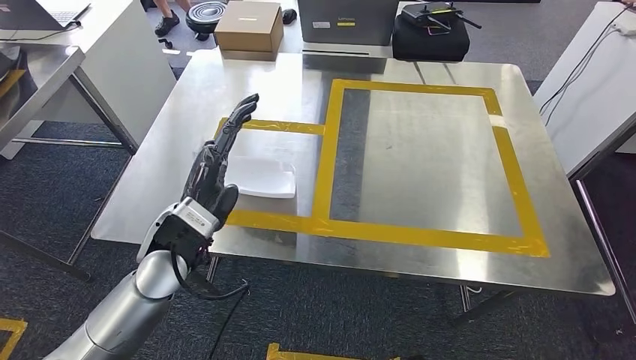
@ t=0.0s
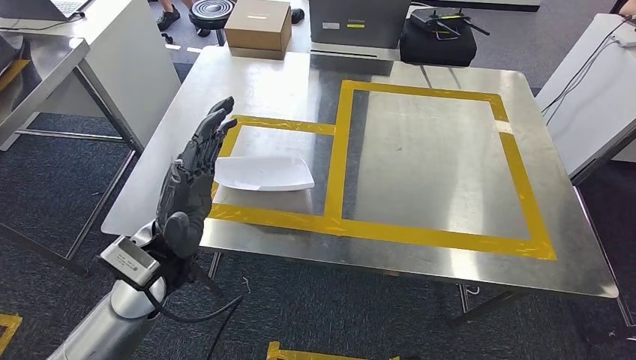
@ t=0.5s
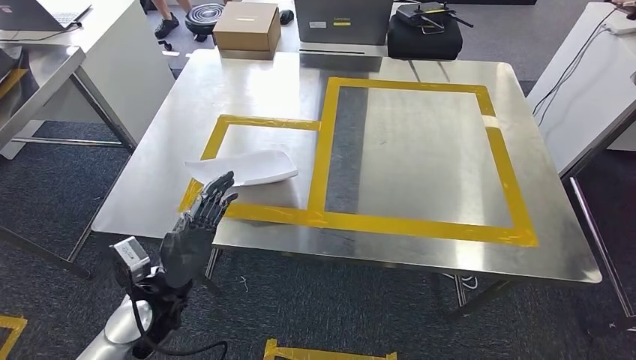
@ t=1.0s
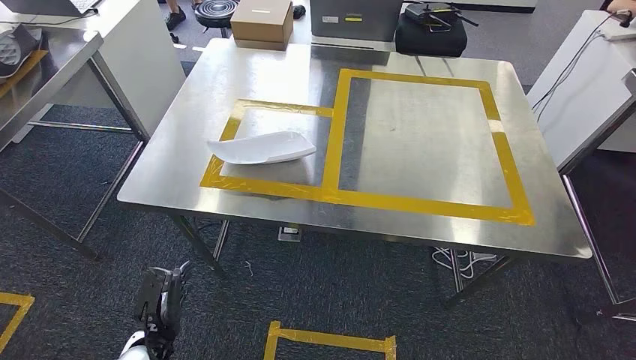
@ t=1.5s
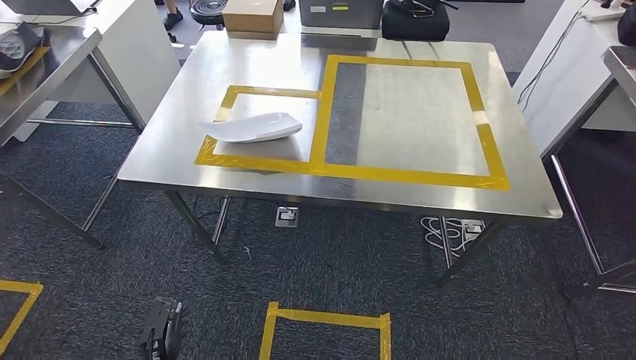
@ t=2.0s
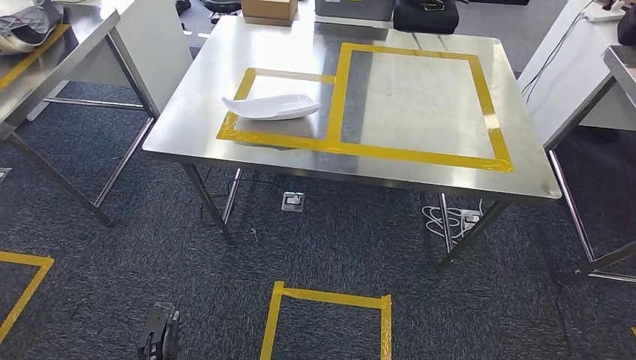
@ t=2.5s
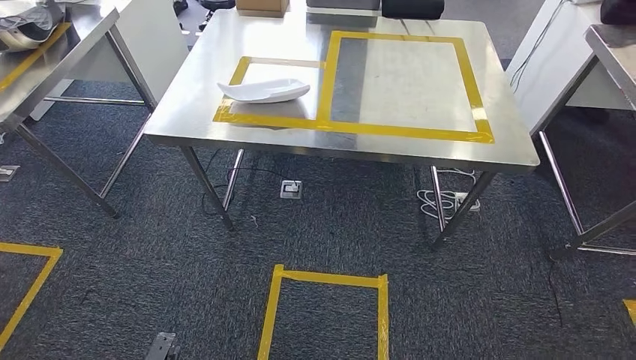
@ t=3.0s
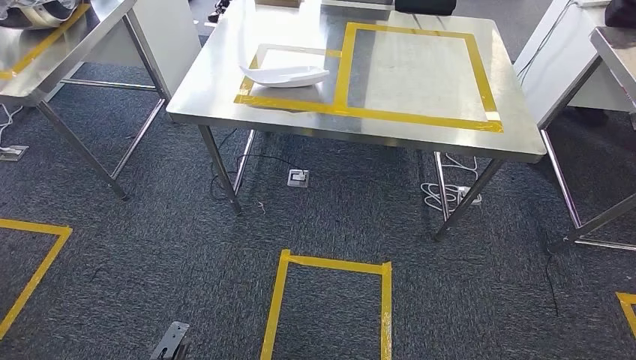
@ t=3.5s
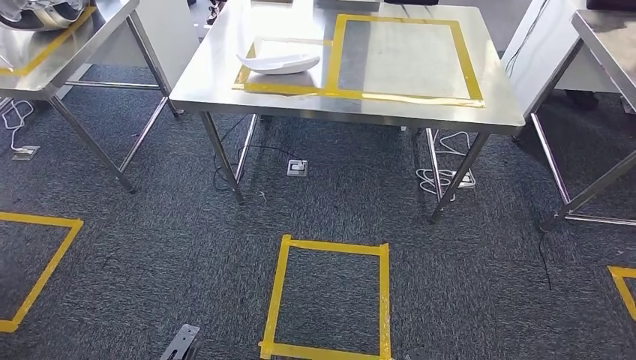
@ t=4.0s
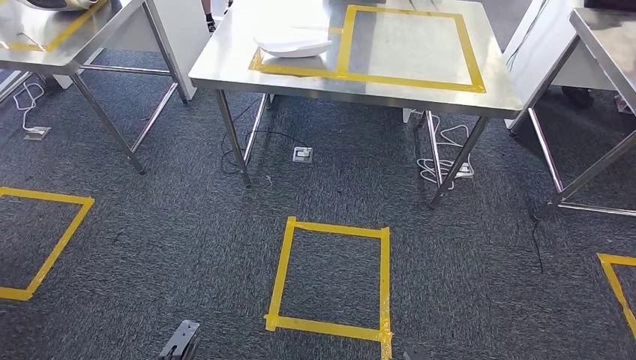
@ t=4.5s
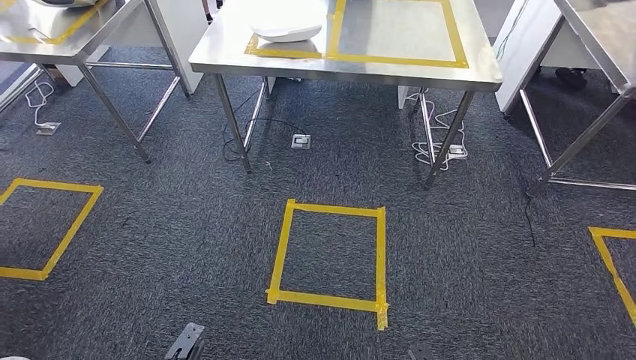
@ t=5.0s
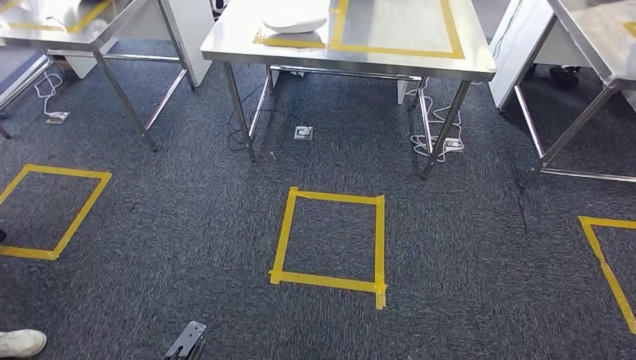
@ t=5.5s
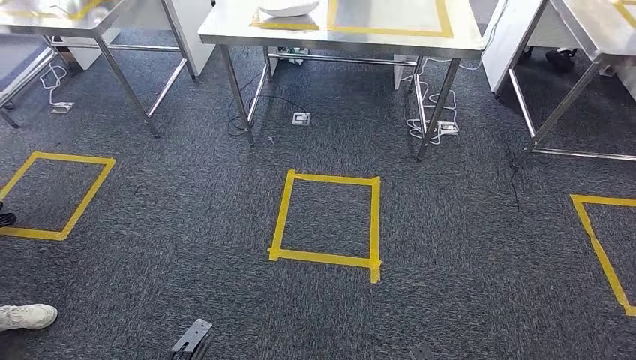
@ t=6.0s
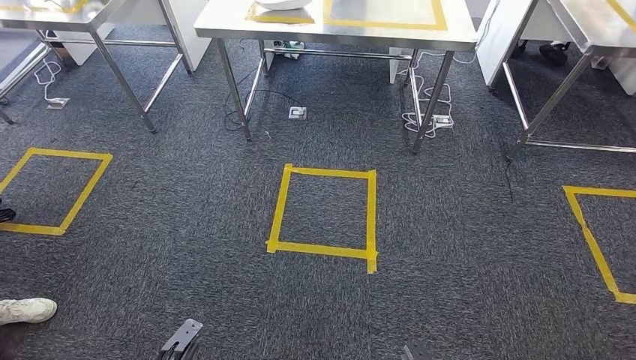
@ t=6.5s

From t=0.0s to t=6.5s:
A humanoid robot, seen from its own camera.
Step, from t=0.5s to t=6.5s: Return to the initial position at the workbench.

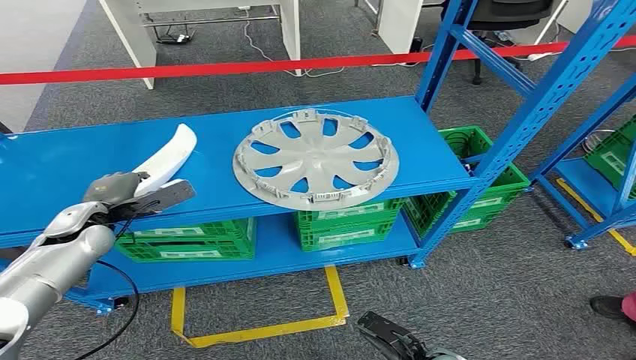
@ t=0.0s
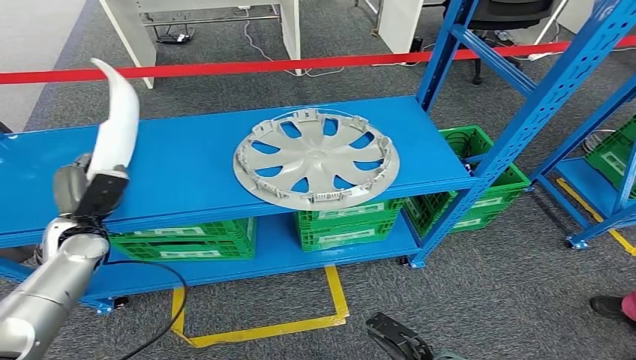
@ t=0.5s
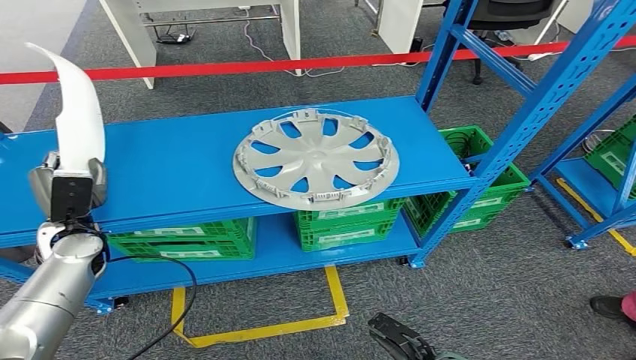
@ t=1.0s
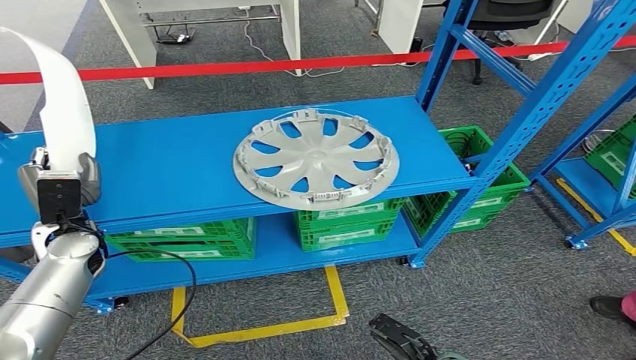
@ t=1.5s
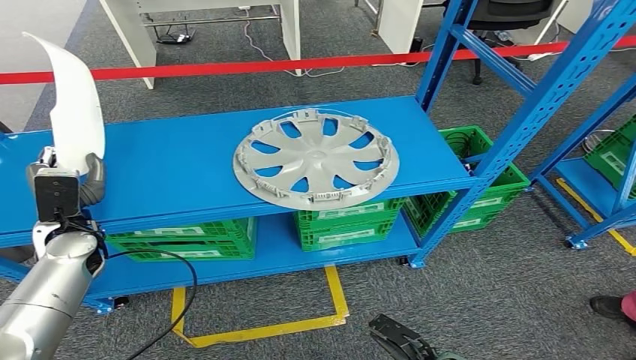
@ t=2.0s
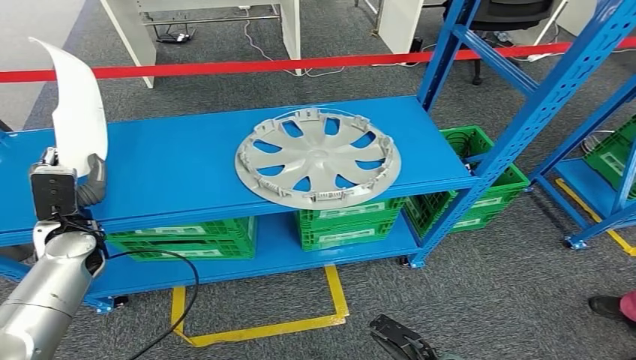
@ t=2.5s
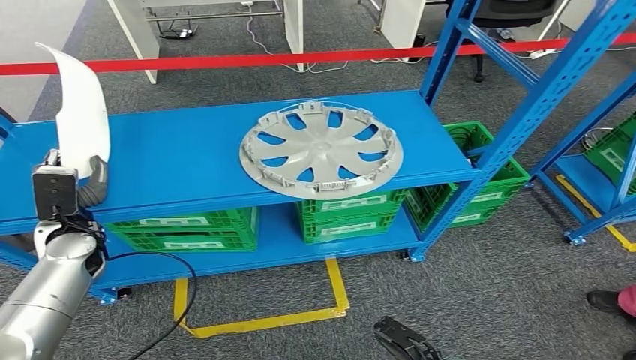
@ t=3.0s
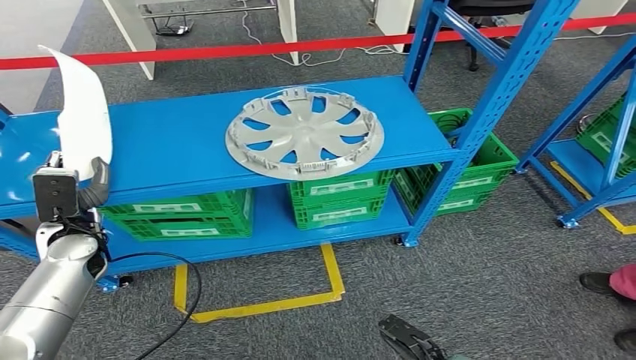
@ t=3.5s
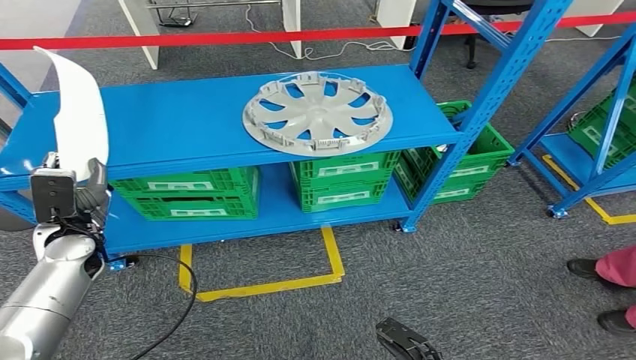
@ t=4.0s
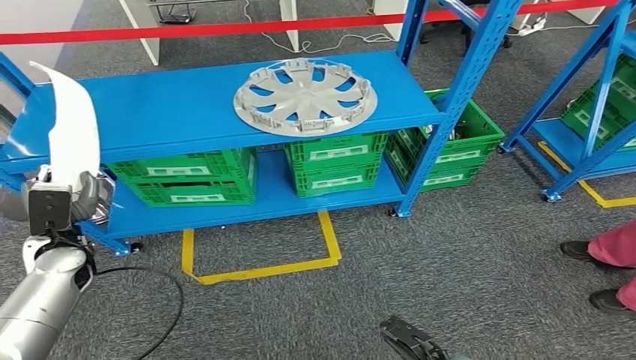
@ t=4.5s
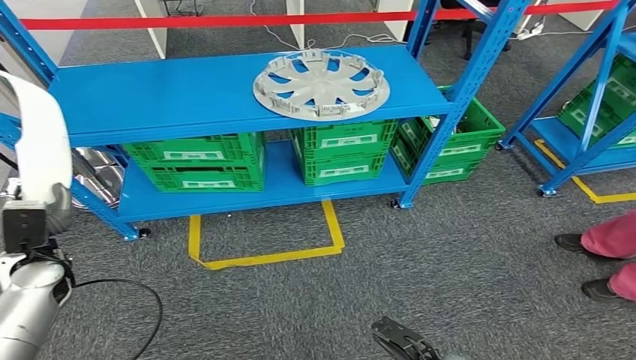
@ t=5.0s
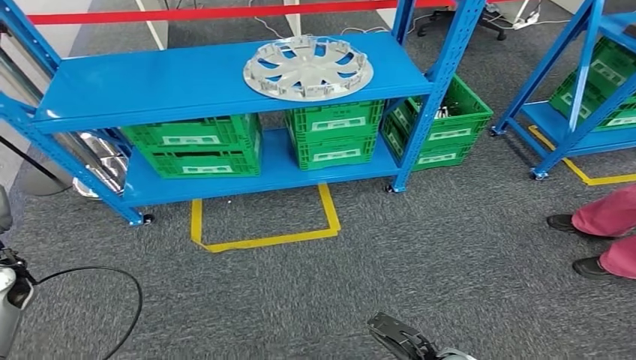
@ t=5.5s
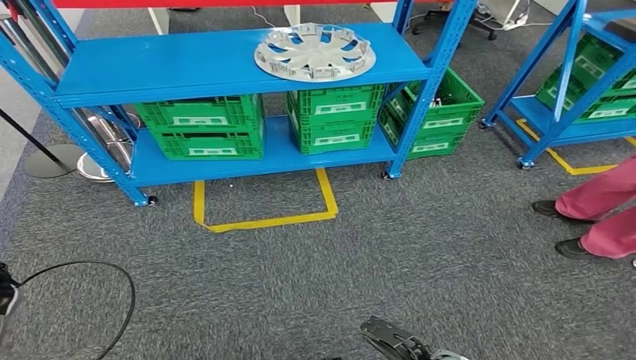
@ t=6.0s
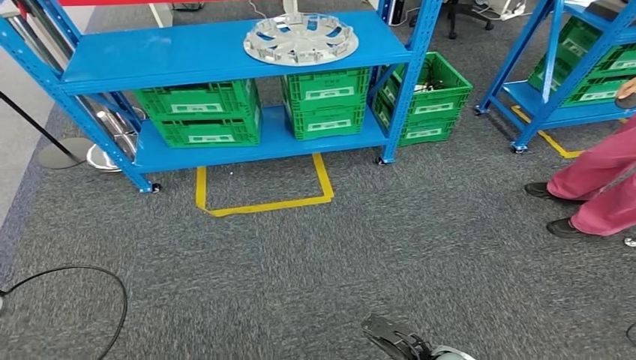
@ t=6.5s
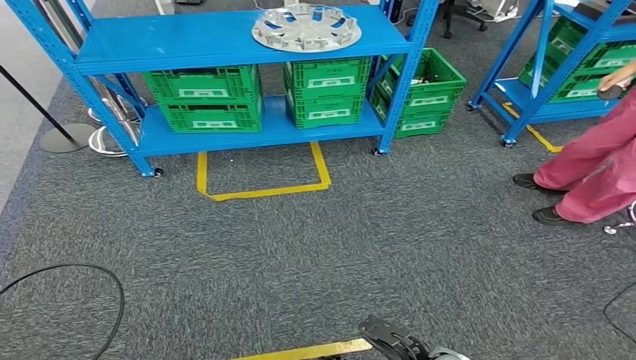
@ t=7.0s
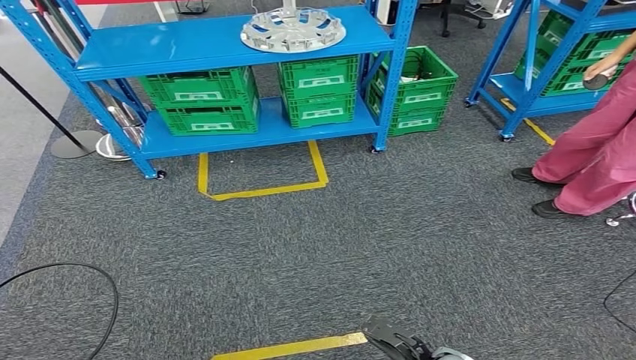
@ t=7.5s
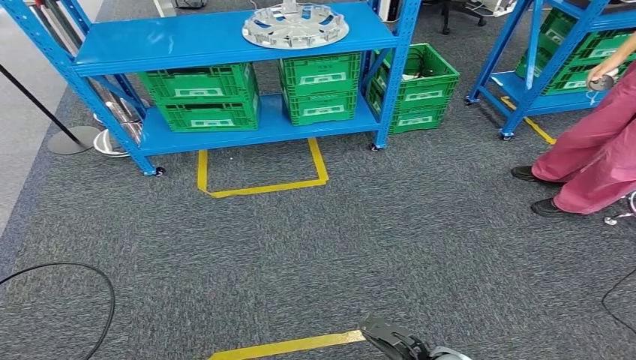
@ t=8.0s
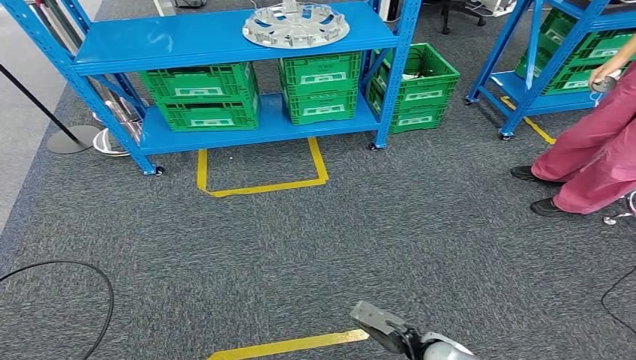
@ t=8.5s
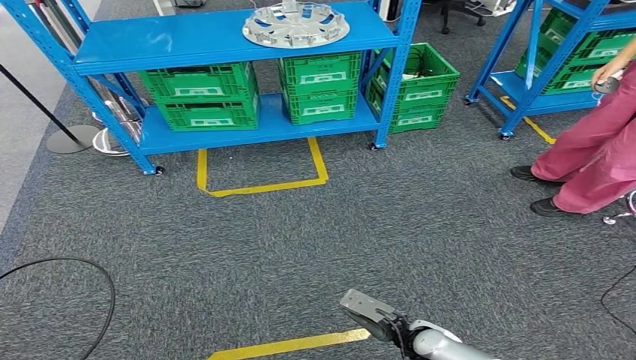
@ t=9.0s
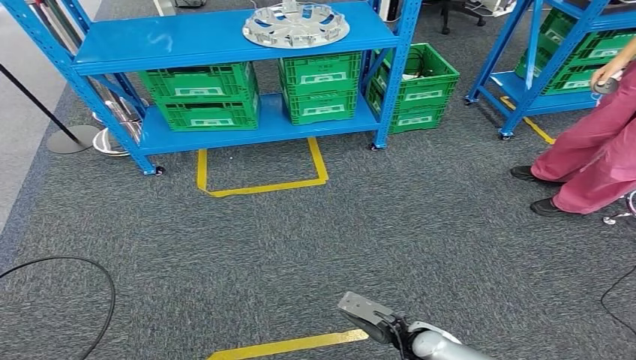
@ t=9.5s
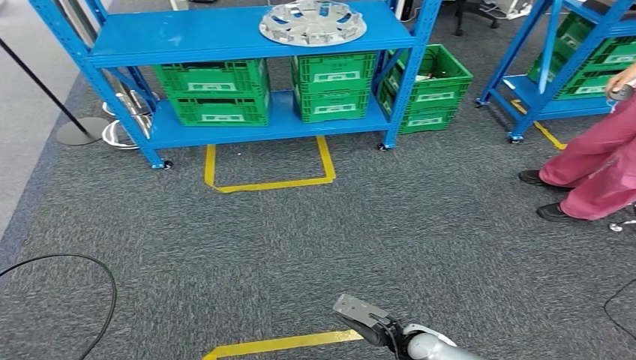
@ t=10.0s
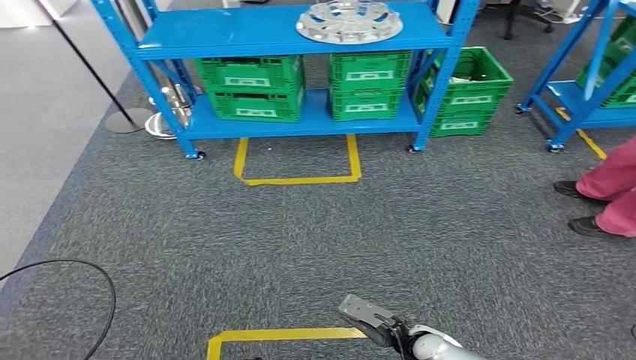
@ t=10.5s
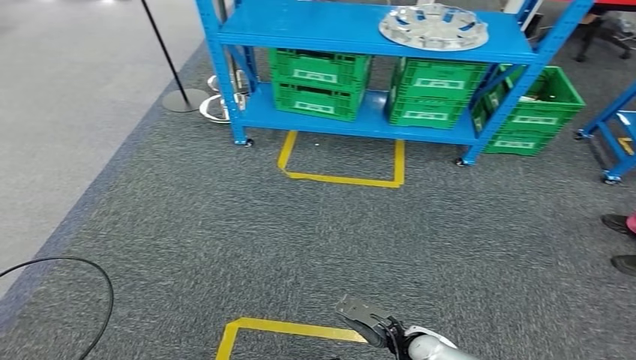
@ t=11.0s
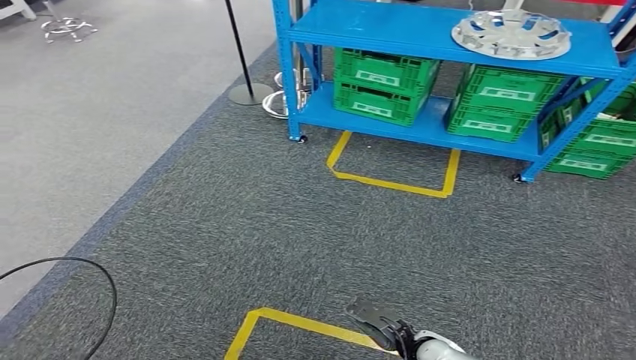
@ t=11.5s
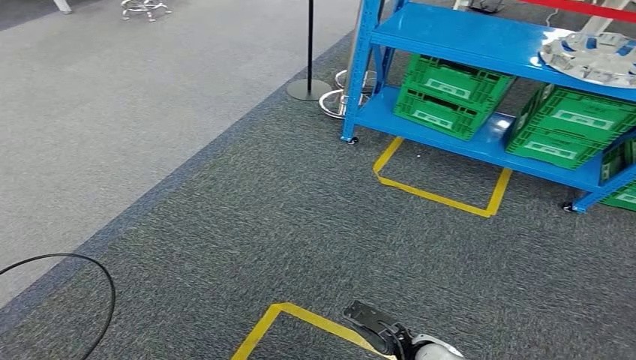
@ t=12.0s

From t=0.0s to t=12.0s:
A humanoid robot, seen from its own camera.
Step, from t=0.0s to t=1.5s: Pick up the small component from the shelf.

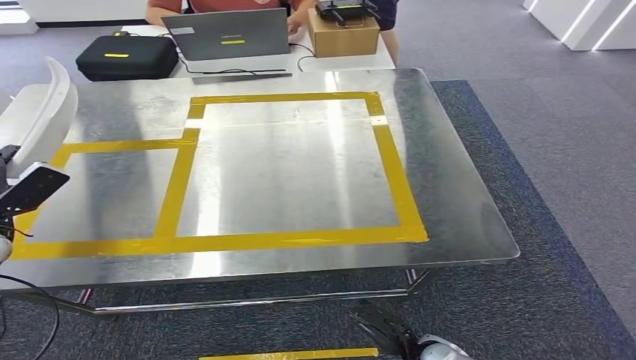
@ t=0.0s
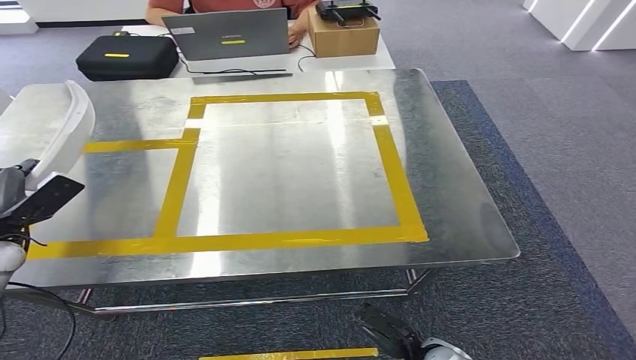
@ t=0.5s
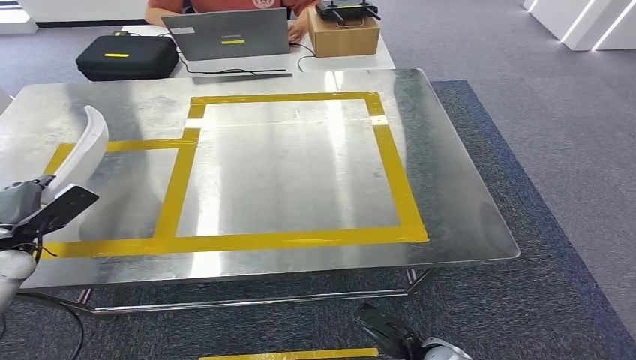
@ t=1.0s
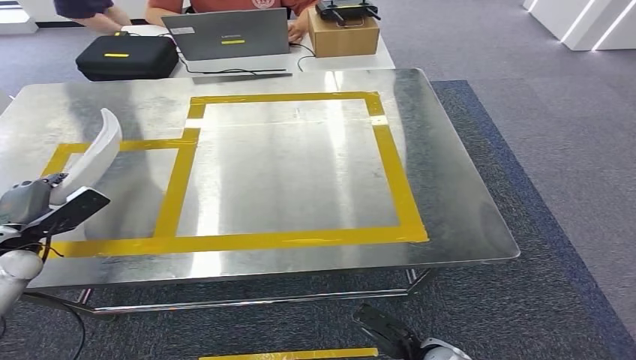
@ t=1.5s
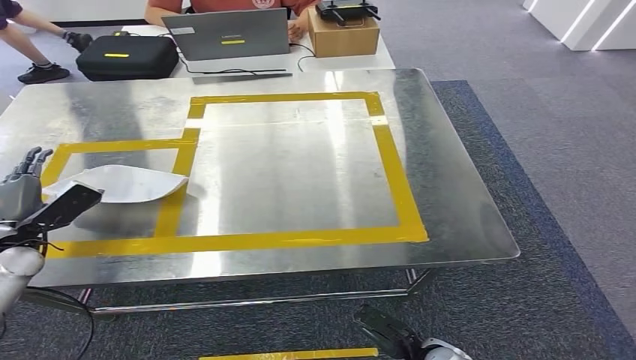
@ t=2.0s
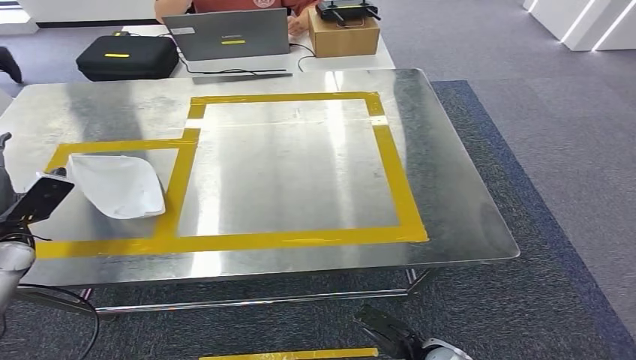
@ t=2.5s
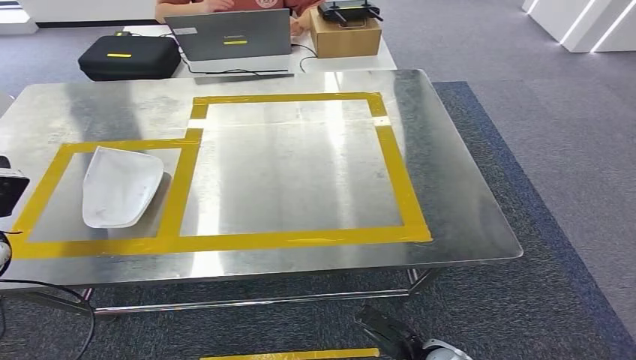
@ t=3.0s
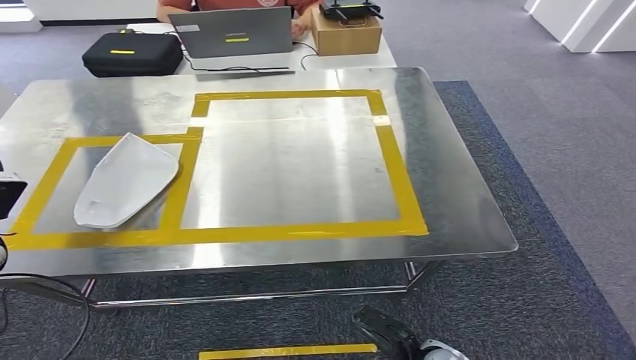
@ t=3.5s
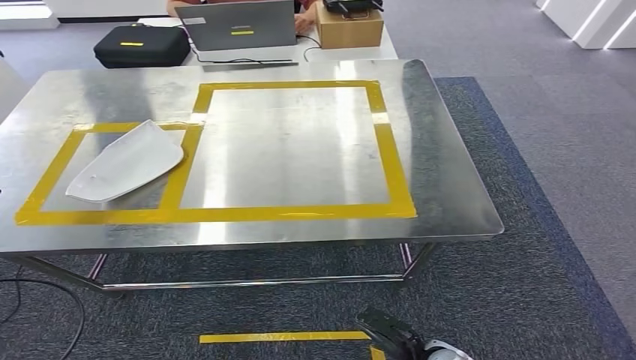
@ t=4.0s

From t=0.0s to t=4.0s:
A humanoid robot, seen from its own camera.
Step, from t=0.0s to t=3.0s: Insert the small component into the corresponding slot on the workbench.
From t=0.0s to t=2.0s: There are only small adjustments of the hands.
